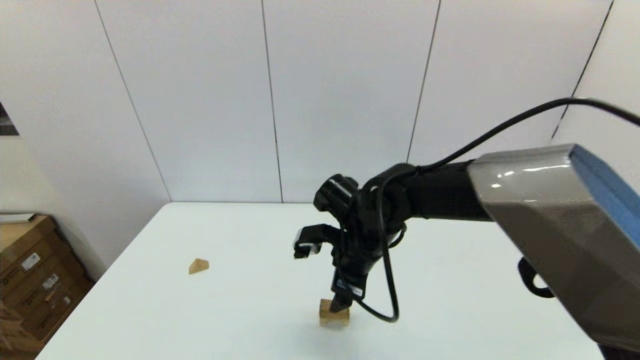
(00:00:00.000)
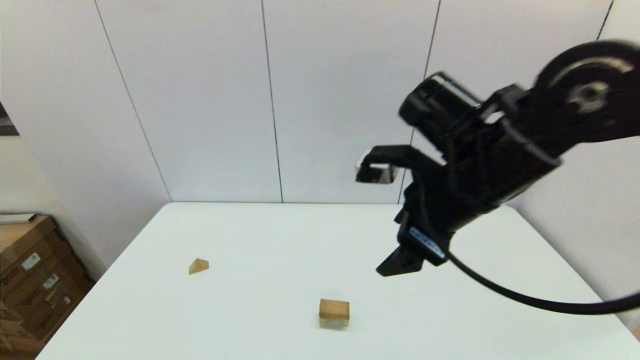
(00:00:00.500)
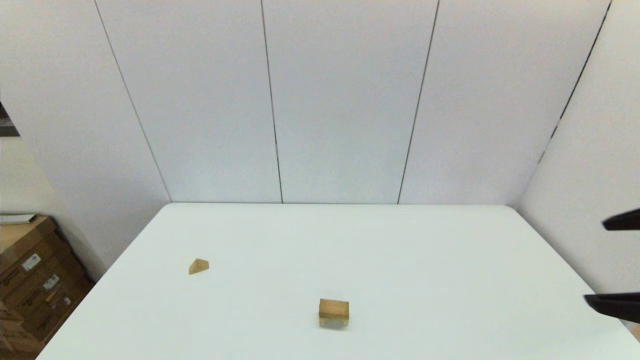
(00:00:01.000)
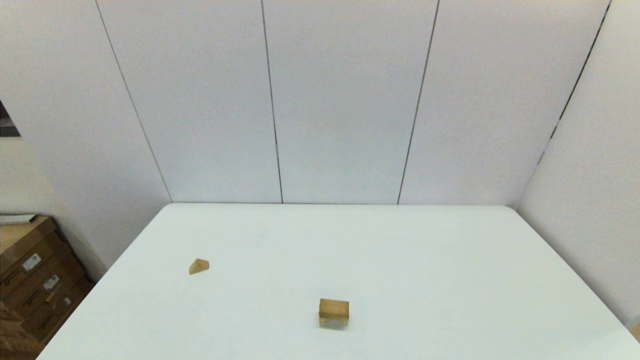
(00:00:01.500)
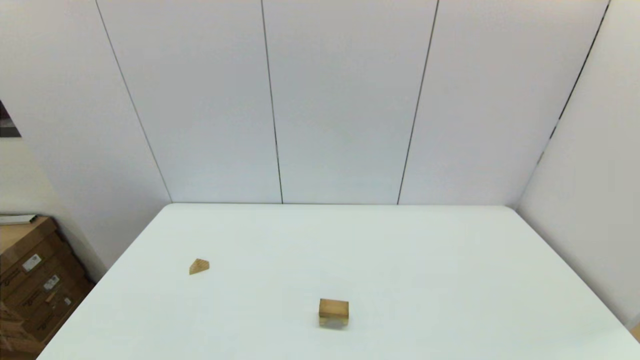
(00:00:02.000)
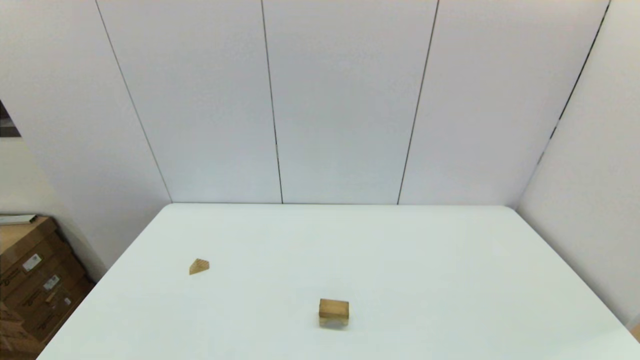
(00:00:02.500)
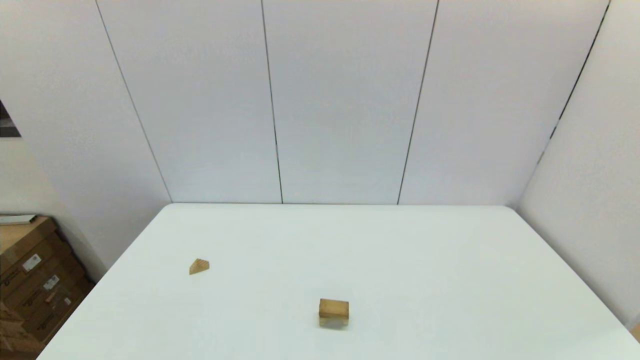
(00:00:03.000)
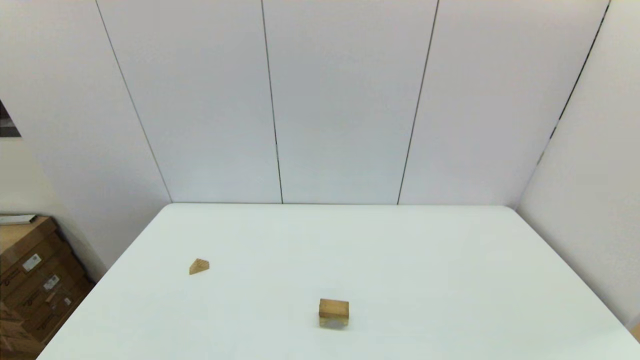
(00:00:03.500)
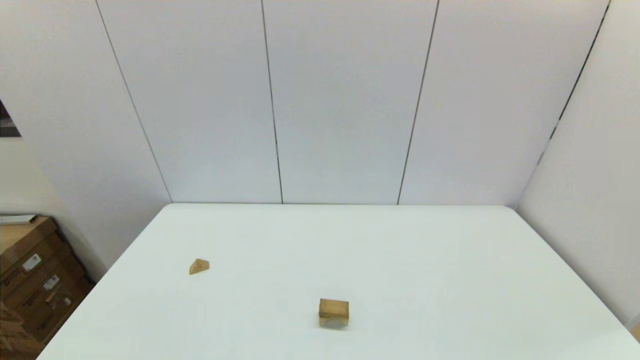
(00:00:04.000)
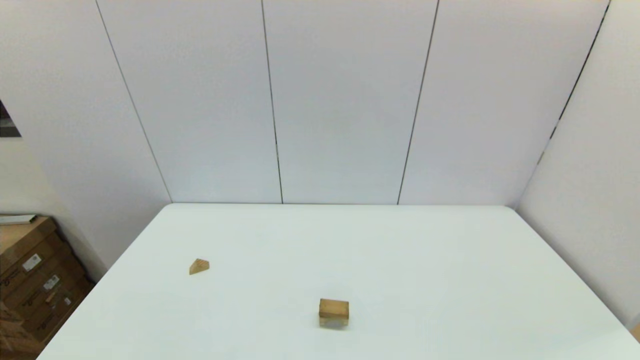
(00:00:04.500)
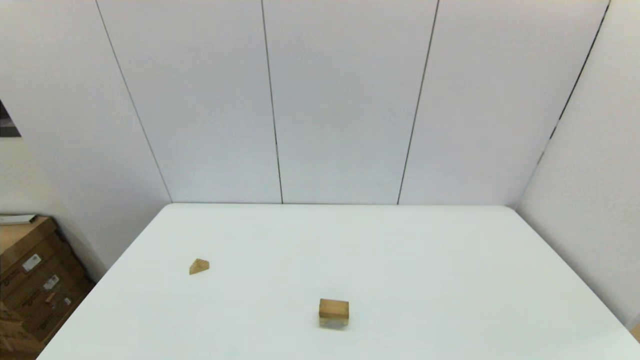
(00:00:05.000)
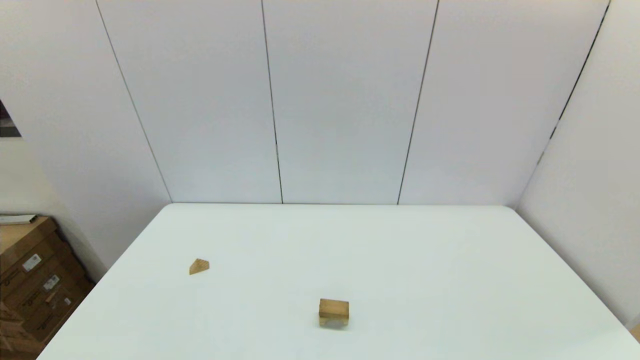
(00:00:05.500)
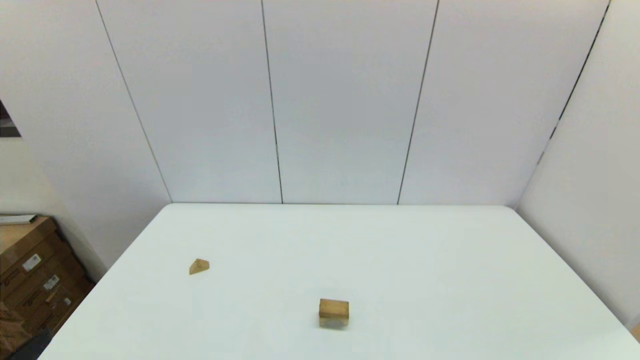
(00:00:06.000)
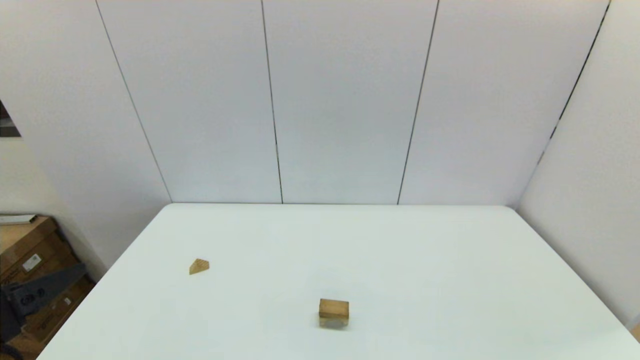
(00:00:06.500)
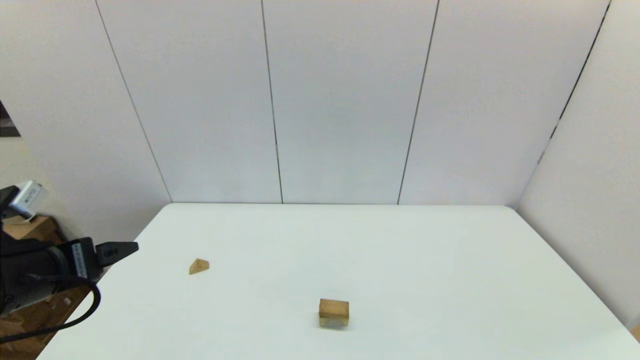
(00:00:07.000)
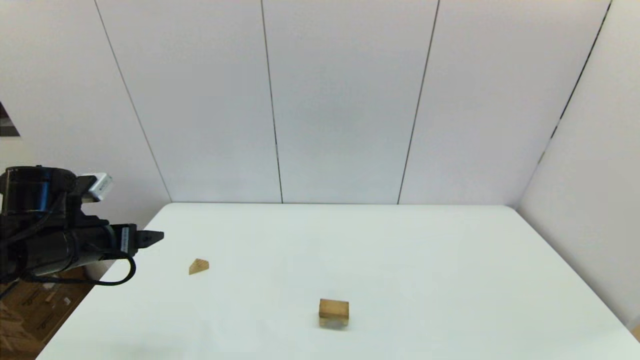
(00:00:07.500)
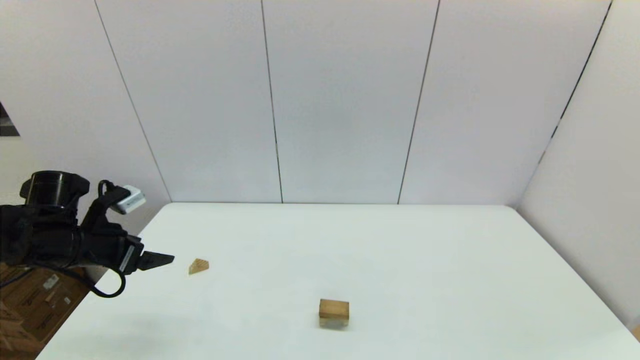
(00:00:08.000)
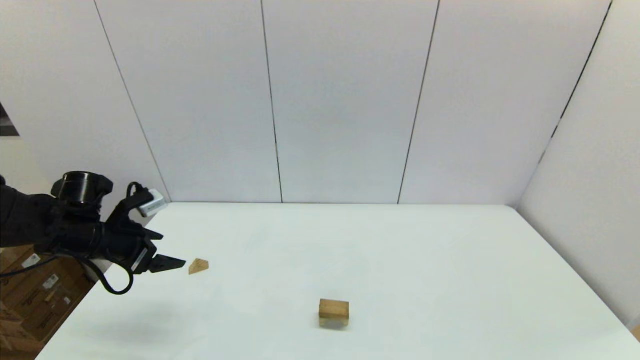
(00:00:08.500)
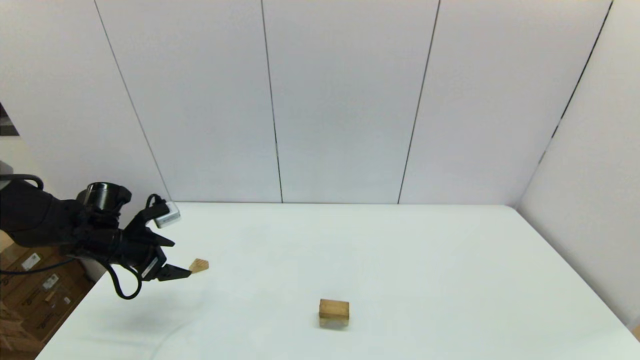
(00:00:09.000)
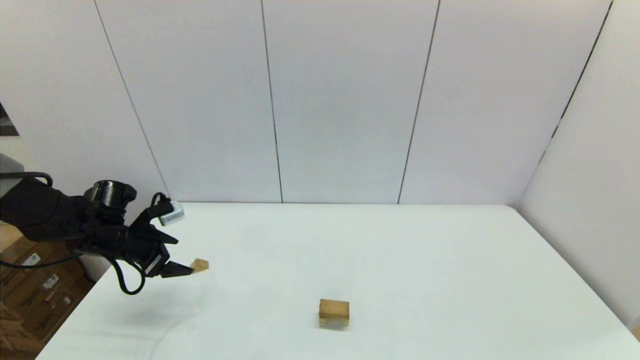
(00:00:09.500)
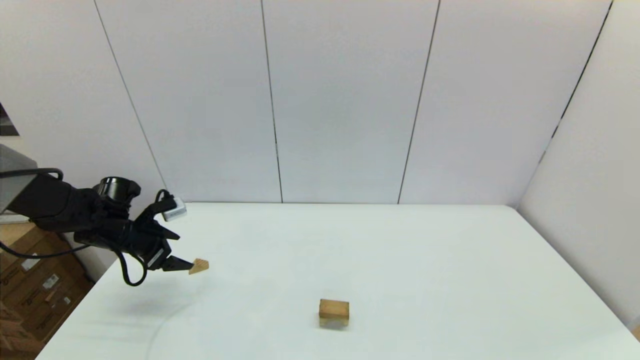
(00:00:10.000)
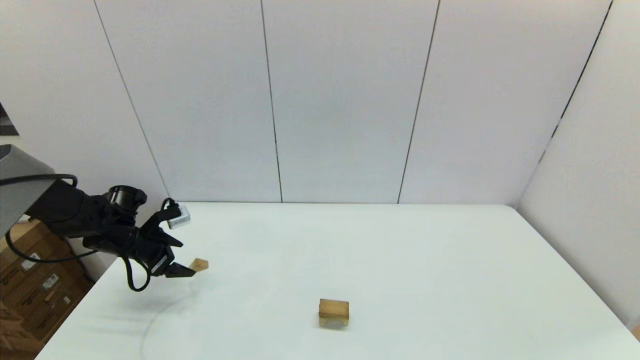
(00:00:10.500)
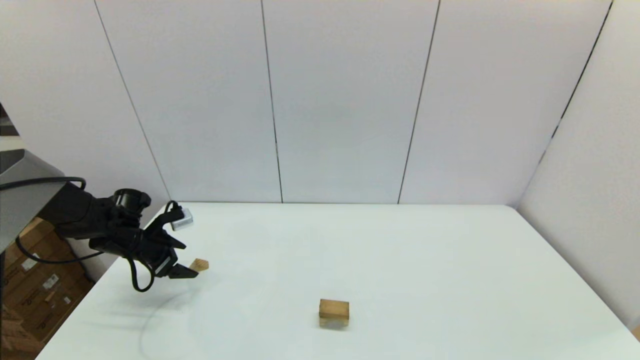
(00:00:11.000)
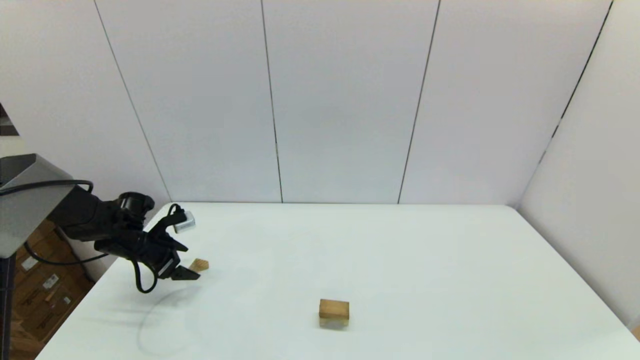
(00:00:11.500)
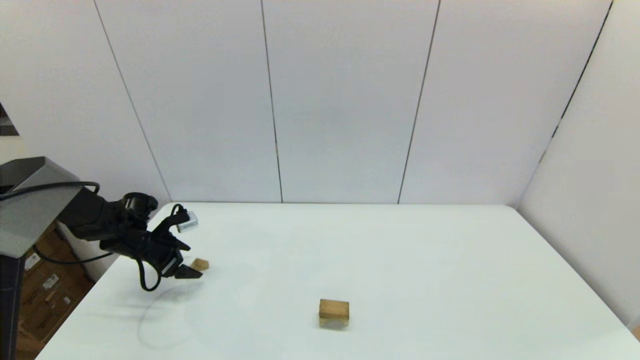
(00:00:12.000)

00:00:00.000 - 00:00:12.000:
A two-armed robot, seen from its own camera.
Task of the whole recording: place the arched building blocks in the center of the table, set up the rectangular building blocks, and then set up the triangular building blocks.
00:00:00.000 - 00:00:02.000: The right gripper heads backward and to the right, covering approximately 50 cm.
00:00:06.000 - 00:00:08.000: The left gripper travels forward by some 25 cm.
00:00:08.000 - 00:00:10.000: The left gripper moves forward and downward, approximately 10 cm.
00:00:10.000 - 00:00:12.000: The left gripper is displaced downward by roughly 5 cm.

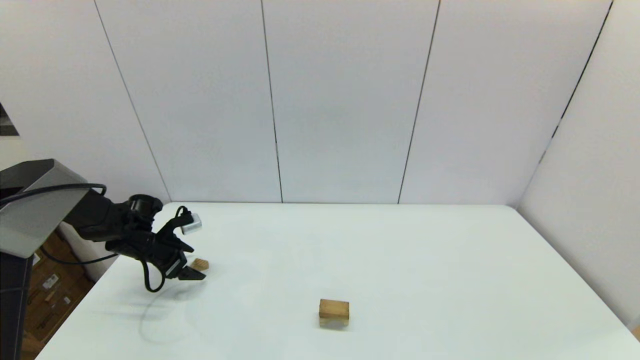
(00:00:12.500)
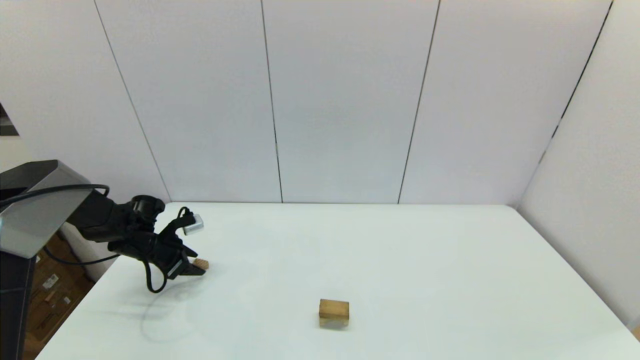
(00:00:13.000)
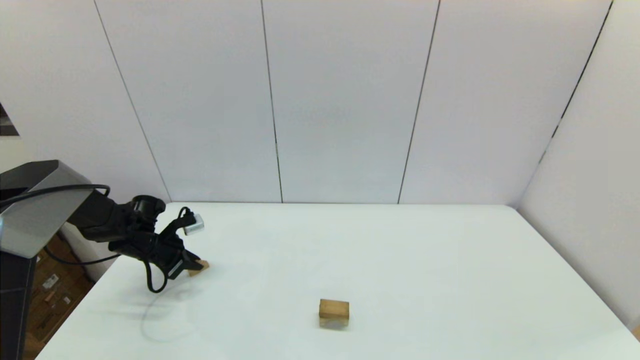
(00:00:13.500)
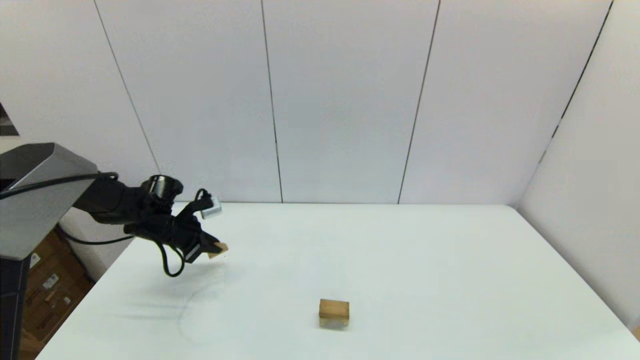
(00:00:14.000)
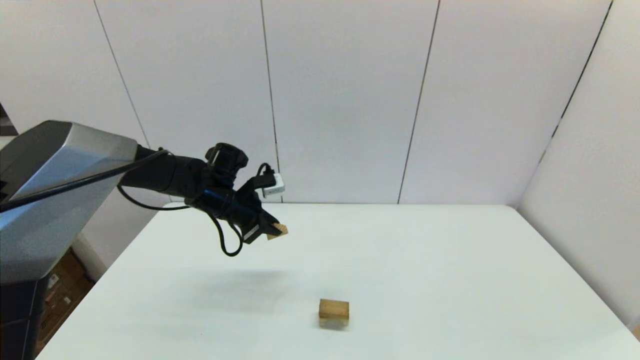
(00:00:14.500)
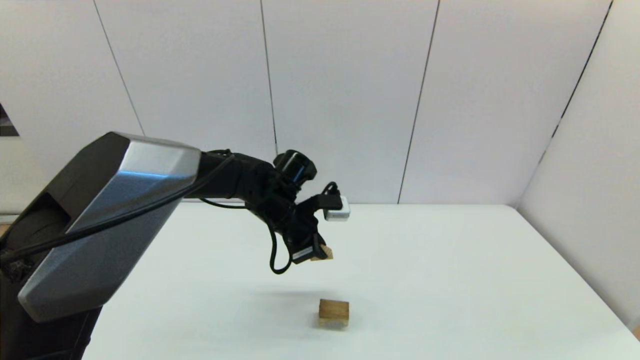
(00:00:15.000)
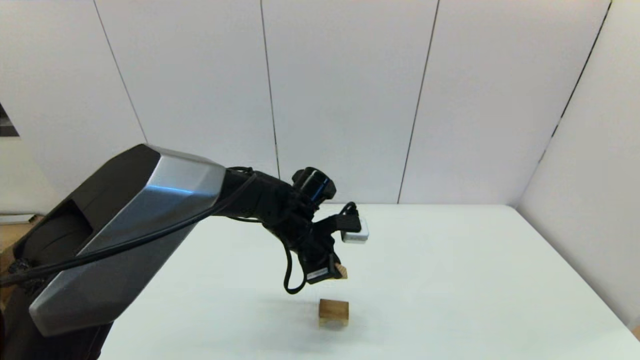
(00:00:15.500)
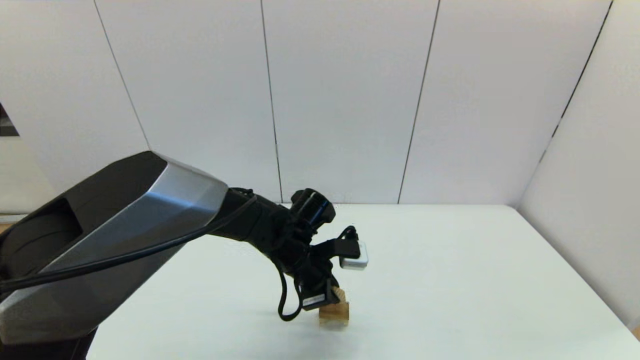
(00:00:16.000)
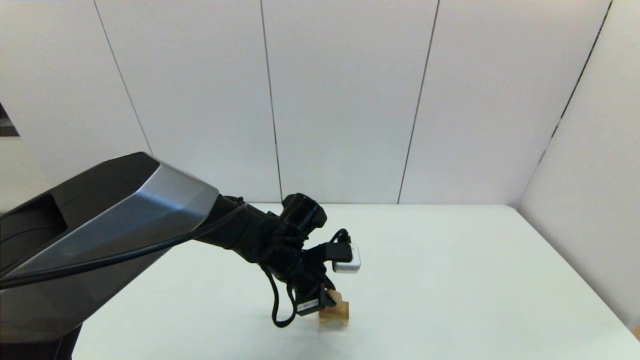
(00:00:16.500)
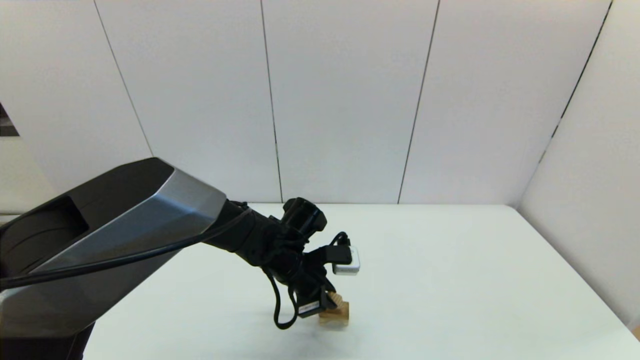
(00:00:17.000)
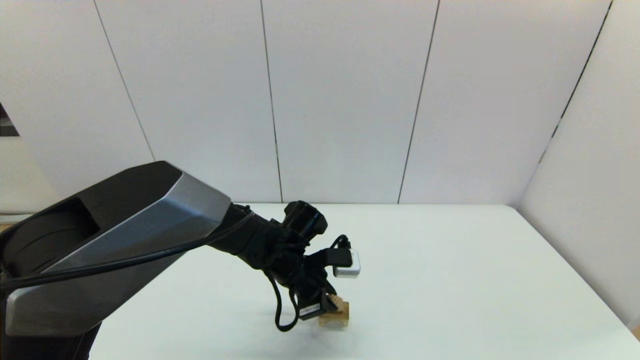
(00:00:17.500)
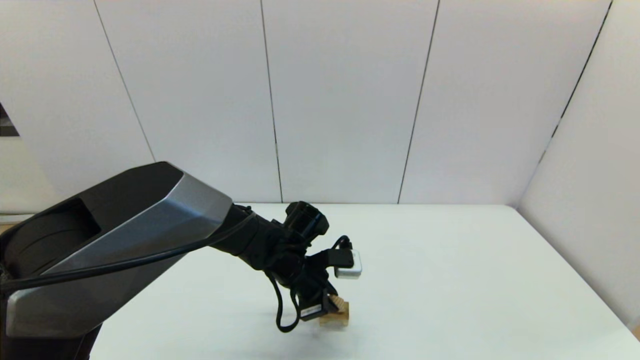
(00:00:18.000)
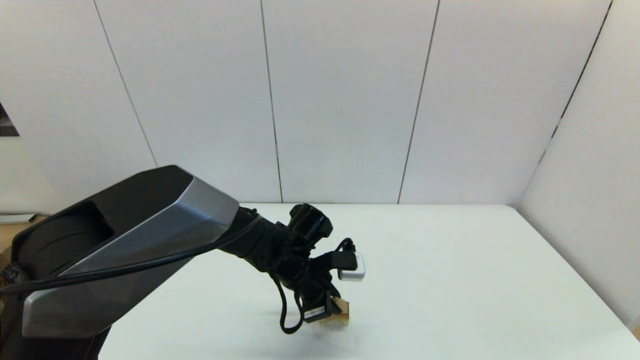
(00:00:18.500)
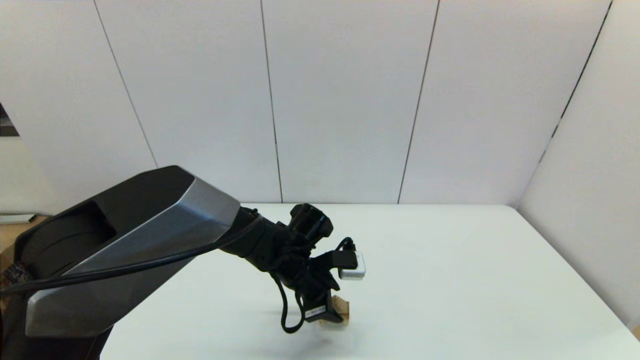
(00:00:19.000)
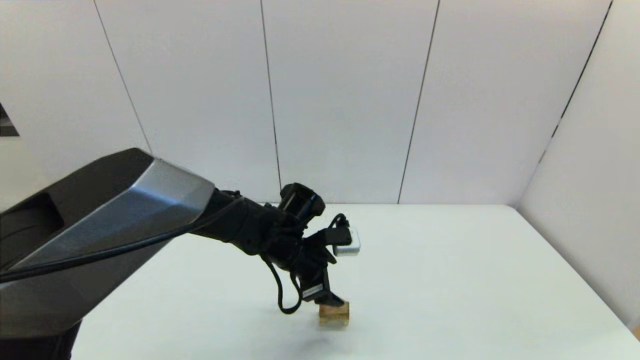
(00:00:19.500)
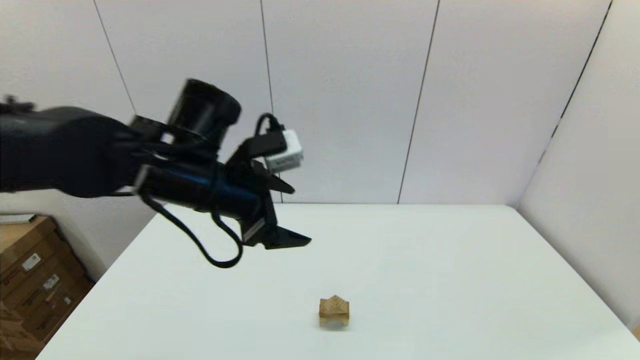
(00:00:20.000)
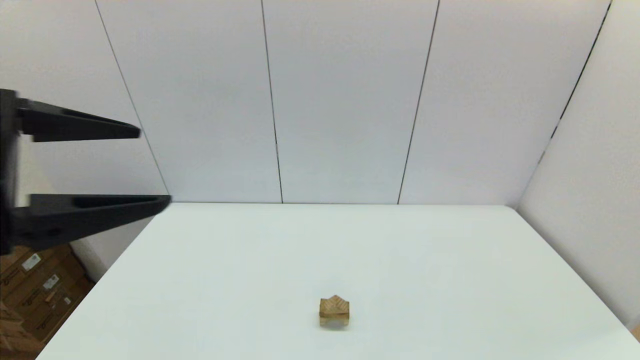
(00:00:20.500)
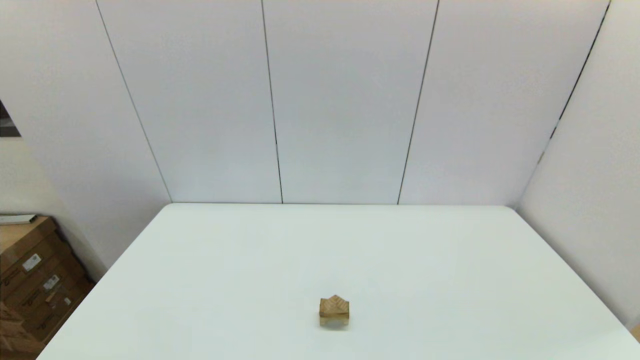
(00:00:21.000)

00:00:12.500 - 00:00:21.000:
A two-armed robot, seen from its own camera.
Task of the whole recording: place the arched building blocks in the center of the table, set up the rectangular building blocks, and then set up the triangular building blocks.
00:00:12.500 - 00:00:14.500: The left gripper shifts roughly 25 cm to the right and upward, and closes.
00:00:14.500 - 00:00:16.500: The left gripper moves to the right, backward and downward, approximately 15 cm.
00:00:16.500 - 00:00:19.000: The left gripper opens its fingers.
00:00:19.000 - 00:00:21.000: The left gripper goes some 50 cm backward, upward and to the left, and opens.
